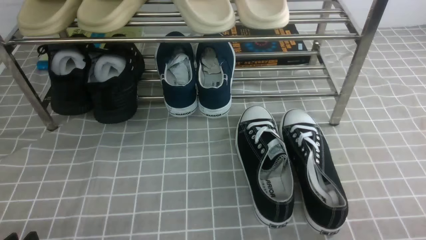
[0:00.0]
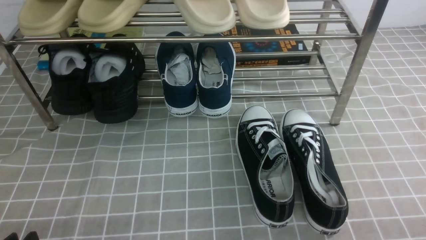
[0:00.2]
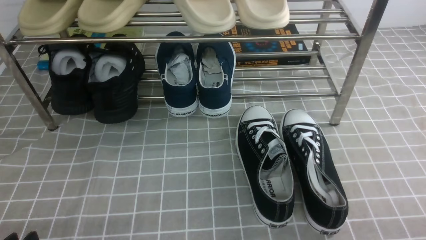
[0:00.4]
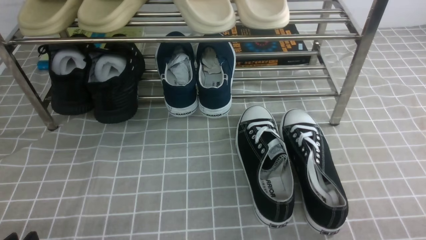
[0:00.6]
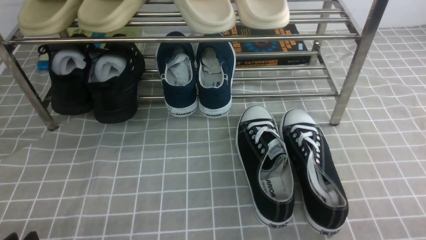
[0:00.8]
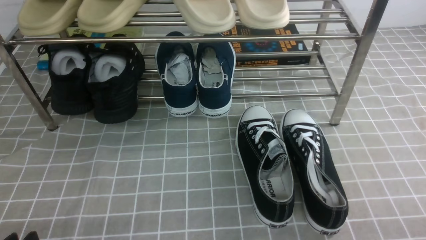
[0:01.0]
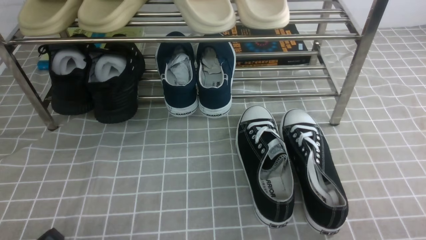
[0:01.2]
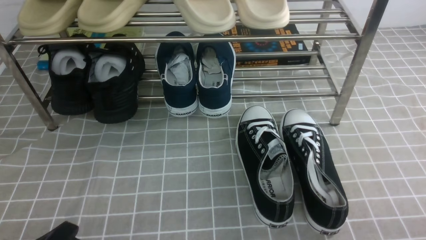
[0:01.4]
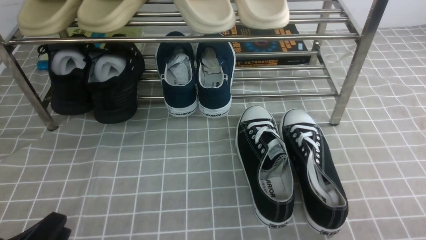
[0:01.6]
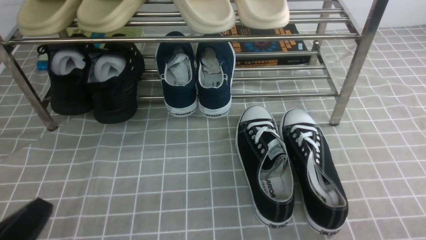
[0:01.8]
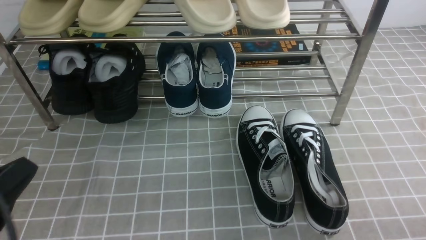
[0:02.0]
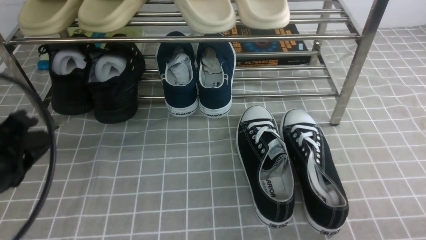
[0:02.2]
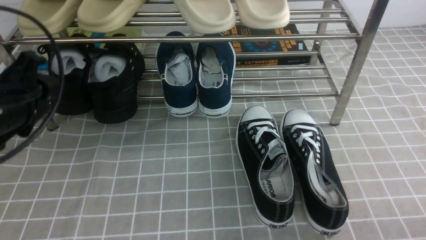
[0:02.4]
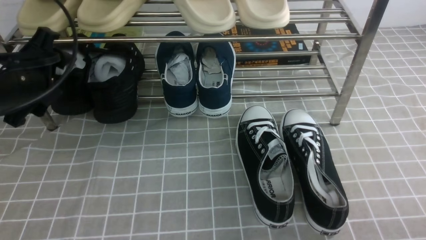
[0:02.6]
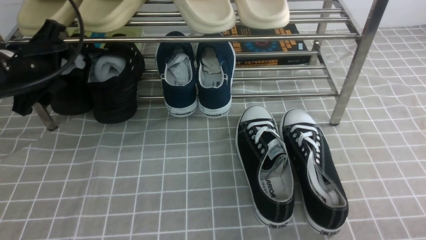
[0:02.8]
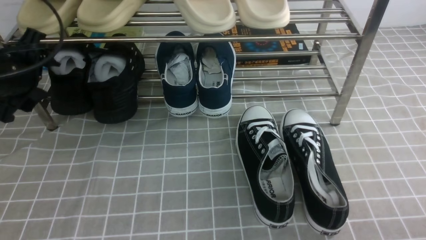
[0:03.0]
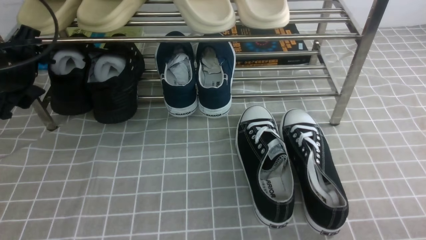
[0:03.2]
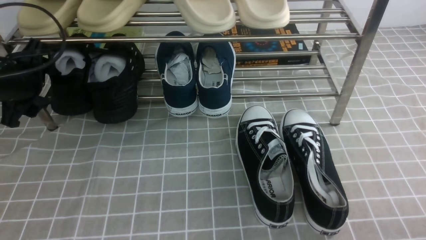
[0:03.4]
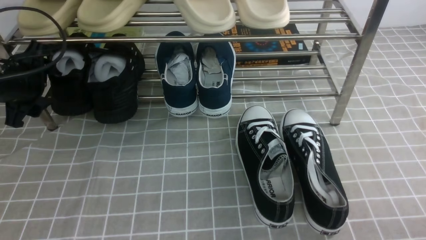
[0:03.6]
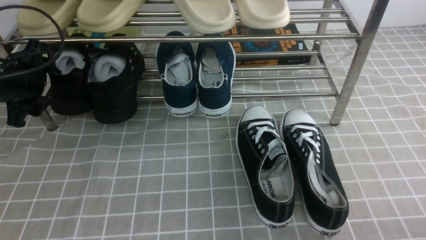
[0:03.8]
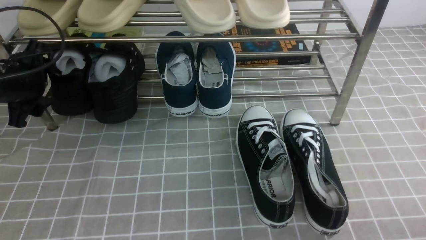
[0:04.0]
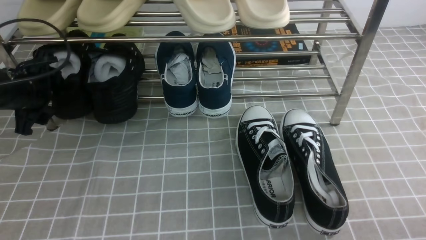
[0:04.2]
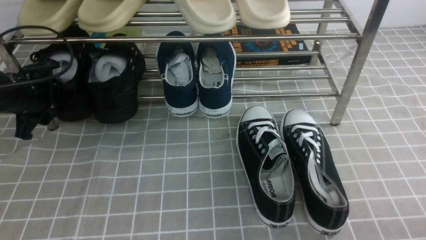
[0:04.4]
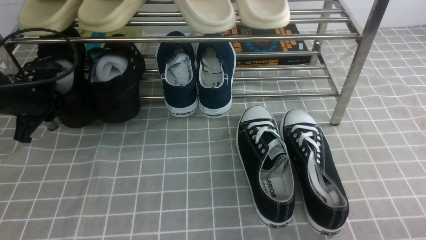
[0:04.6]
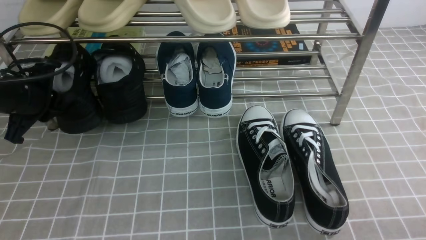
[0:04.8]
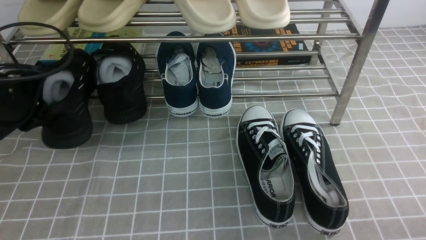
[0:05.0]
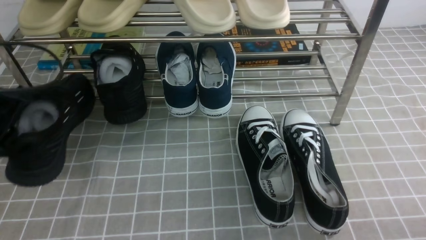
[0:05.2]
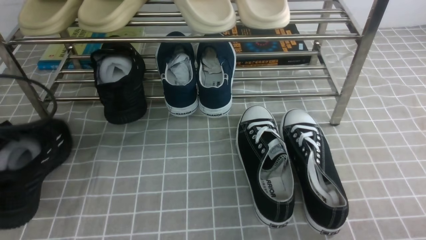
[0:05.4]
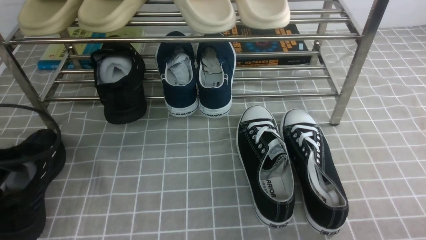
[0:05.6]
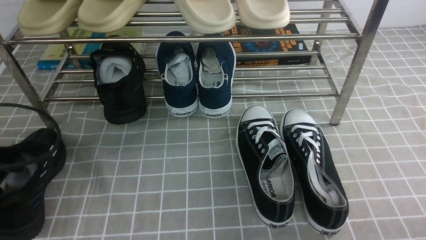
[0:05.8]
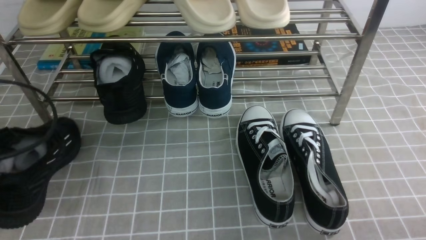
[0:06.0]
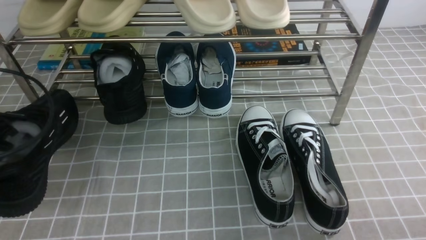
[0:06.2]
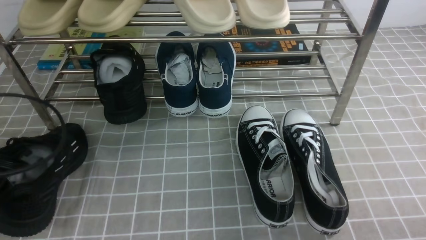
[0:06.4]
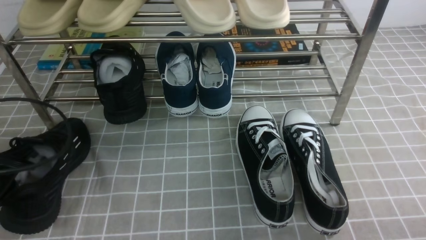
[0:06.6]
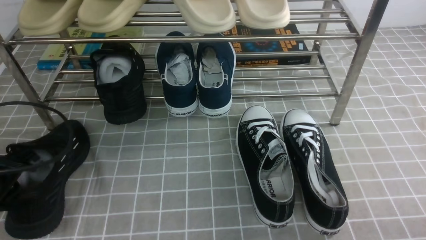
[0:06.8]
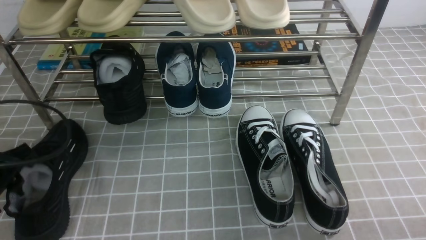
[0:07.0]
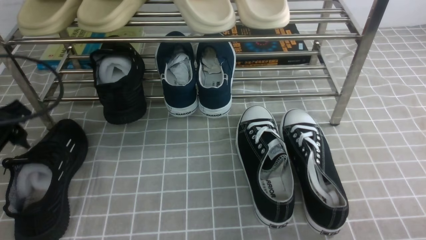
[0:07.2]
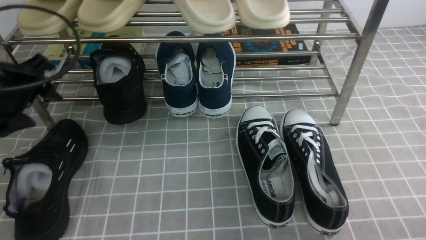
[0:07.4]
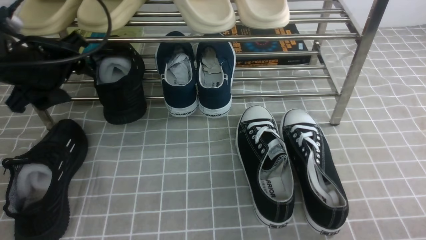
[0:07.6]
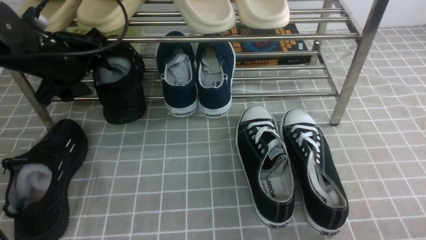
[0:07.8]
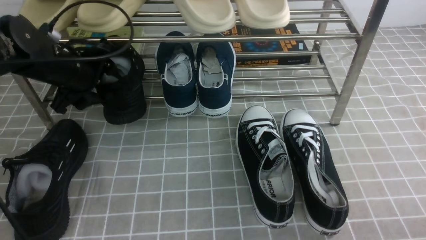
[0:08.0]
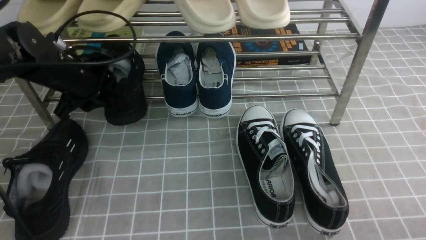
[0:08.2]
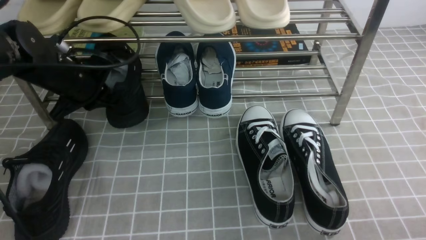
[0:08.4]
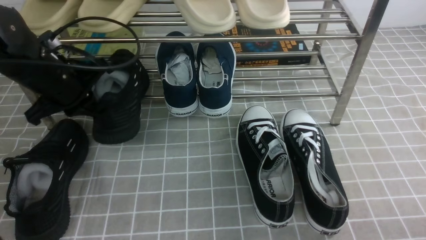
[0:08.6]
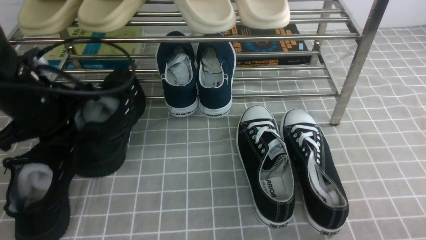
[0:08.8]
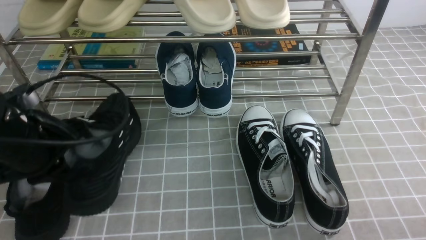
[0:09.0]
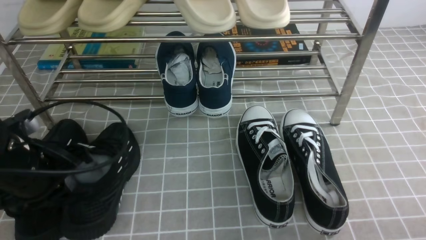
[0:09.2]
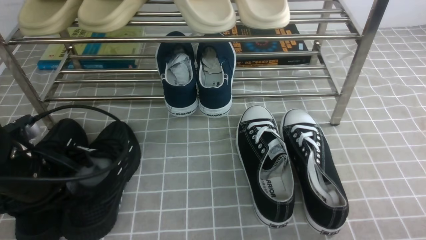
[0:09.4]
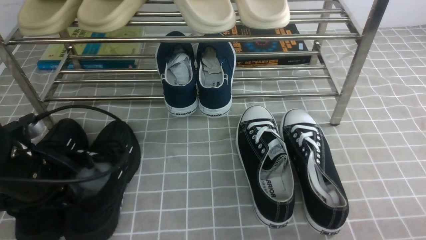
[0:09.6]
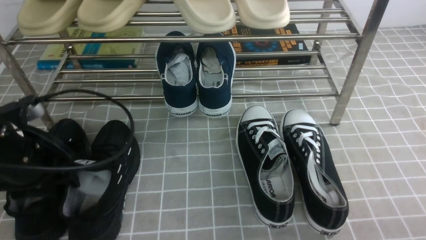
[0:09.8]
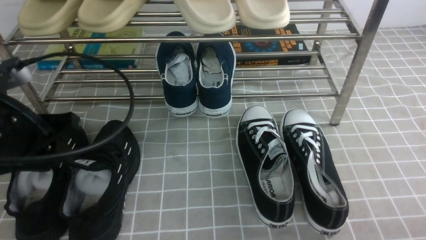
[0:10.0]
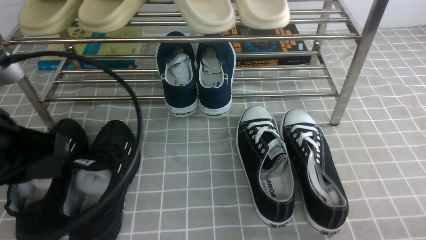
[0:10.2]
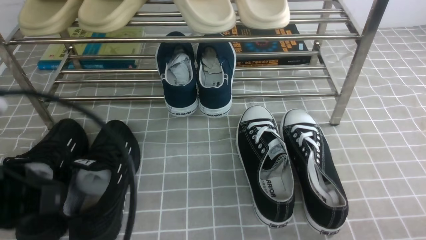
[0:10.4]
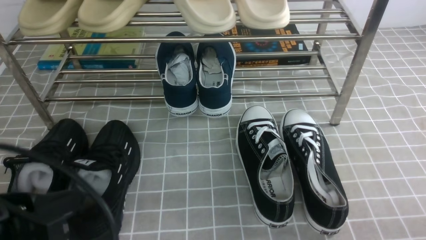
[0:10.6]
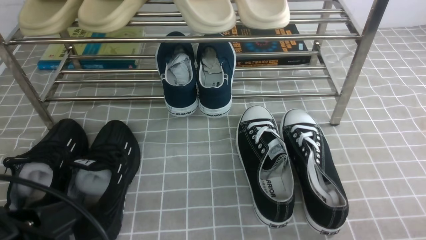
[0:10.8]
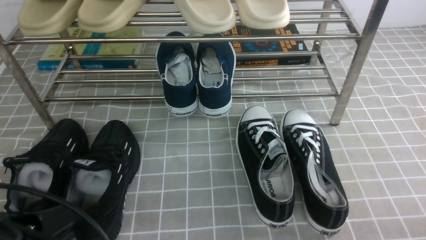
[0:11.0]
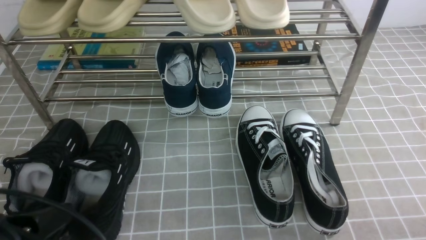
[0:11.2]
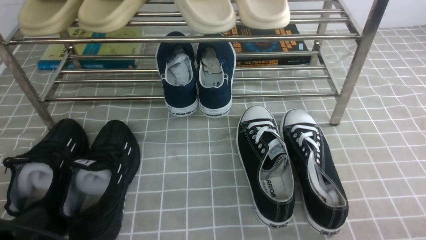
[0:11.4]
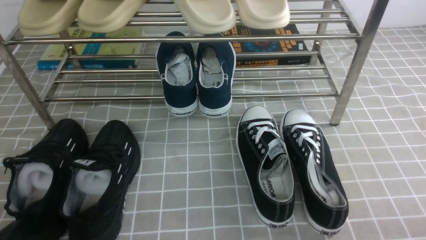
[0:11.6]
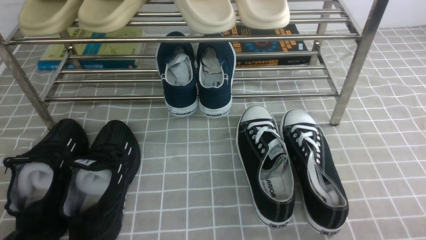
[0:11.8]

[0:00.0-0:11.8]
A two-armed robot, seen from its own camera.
Step, 0:00.0 to 0:04.4: use the left arm to clamp a shoe on the left side of the shoe rack.
Step, 0:04.6 to 0:07.0: Use your left arm to remove the clamped shoe from the shoe rack and put it down.
Step, 0:07.4 to 0:08.4: use the left arm to clamp a shoe on the left side of the shoe rack.
Step, 0:08.8 to 0:09.8: Use your left arm to remove the clamped shoe from the shoe rack and put it down.
0:01.4 to 0:03.0: The left gripper heads forward and upward, covering some 30 cm, and opens.
0:03.0 to 0:04.4: The left gripper moves downward, approximately 5 cm, and closes up.
0:04.4 to 0:06.0: The left gripper moves backward, about 15 cm, and closes its fingers.
0:06.0 to 0:07.4: The left gripper goes about 10 cm forward, and opens its fingers.
0:07.4 to 0:08.8: The left gripper reaches some 10 cm forward, then returns, and closes up.
0:08.8 to 0:10.4: The left gripper goes roughly 15 cm backward, and opens, then closes again.
0:10.4 to 0:11.8: The left gripper is displaced downward and backward by approximately 15 cm.

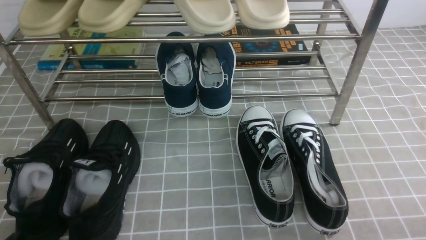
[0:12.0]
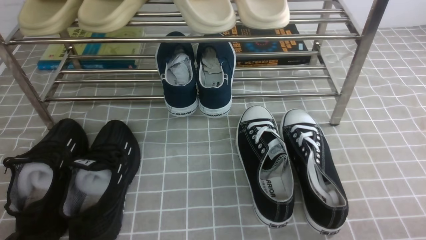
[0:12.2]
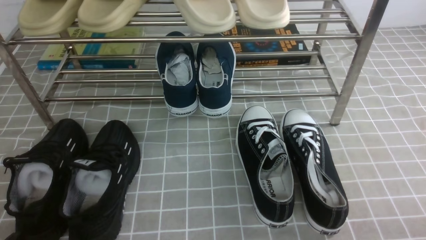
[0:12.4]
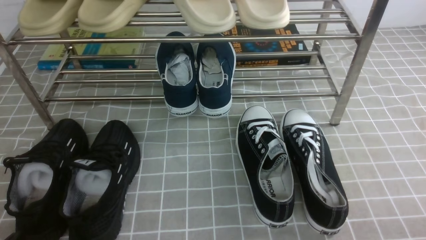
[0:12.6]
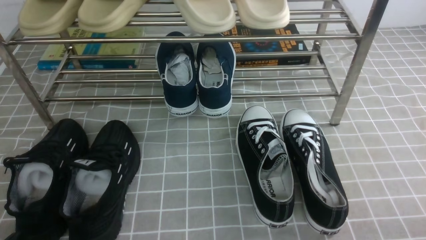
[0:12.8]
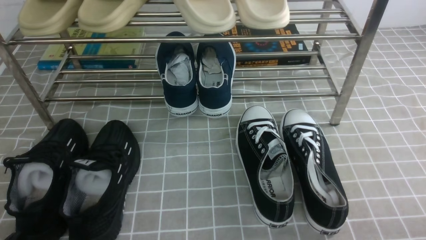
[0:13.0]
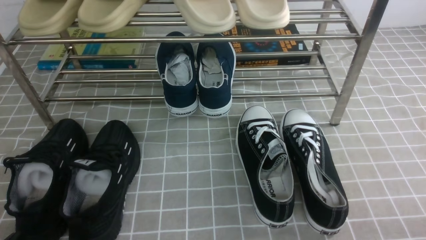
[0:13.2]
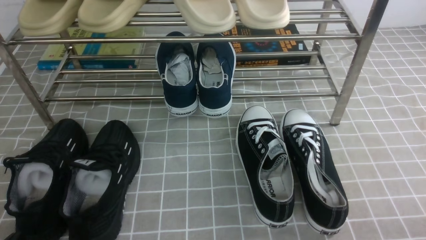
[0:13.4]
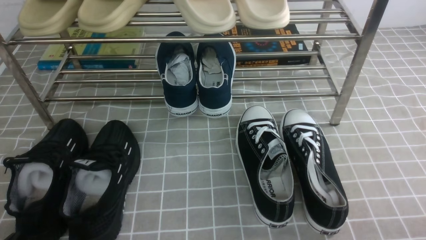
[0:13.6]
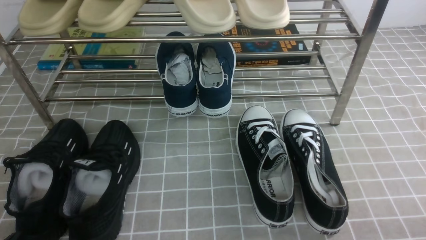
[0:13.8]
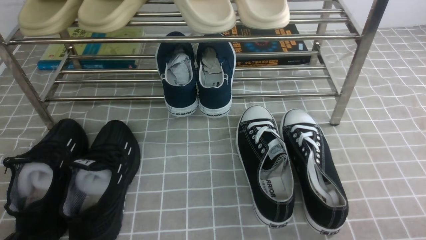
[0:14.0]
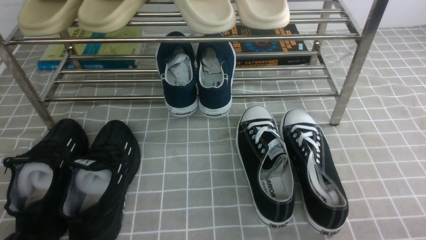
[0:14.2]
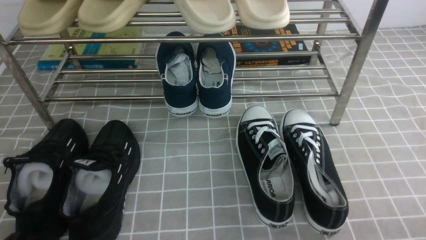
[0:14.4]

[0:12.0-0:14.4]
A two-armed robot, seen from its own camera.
0:12.0 to 0:14.4: The two grippers keep their place.

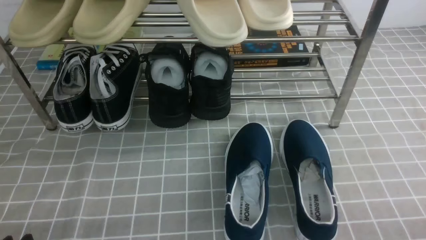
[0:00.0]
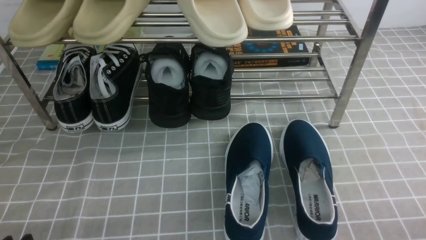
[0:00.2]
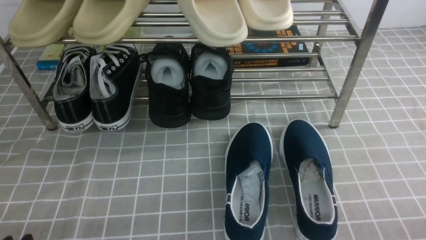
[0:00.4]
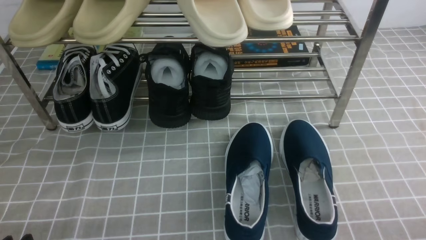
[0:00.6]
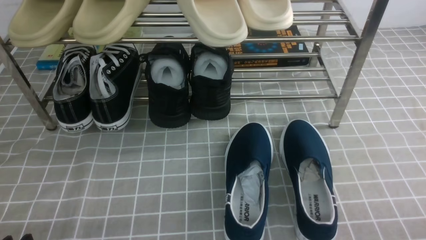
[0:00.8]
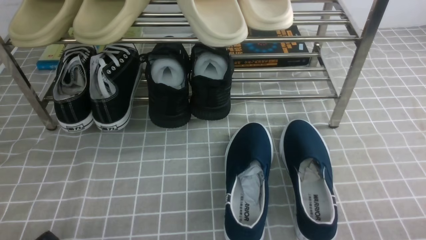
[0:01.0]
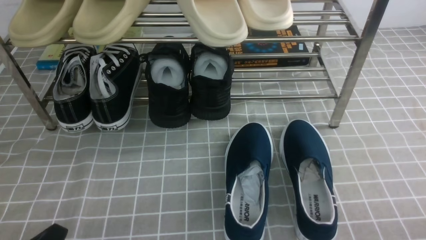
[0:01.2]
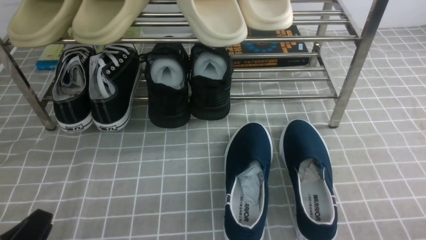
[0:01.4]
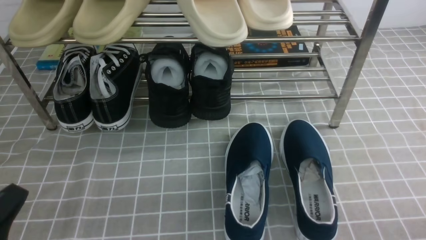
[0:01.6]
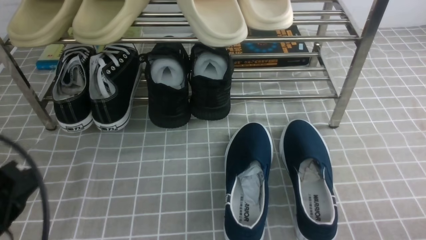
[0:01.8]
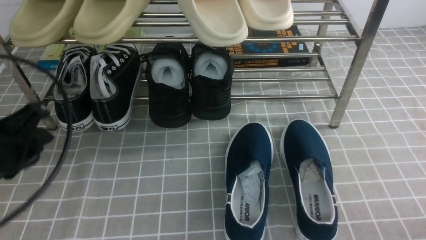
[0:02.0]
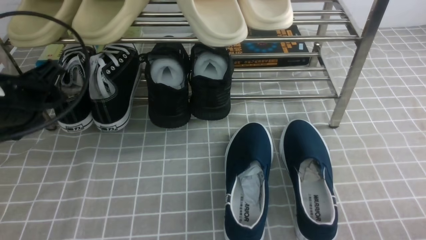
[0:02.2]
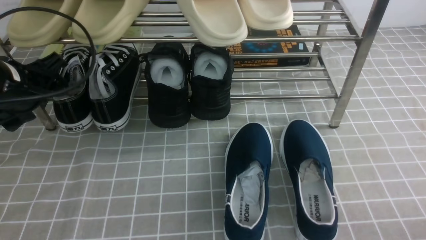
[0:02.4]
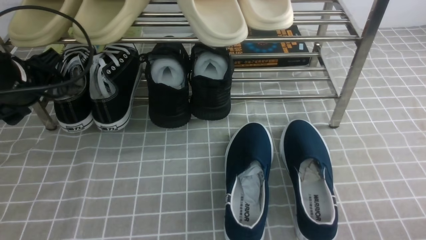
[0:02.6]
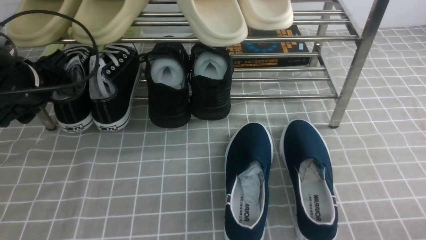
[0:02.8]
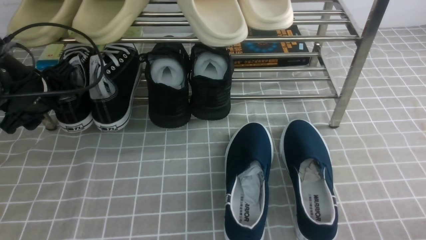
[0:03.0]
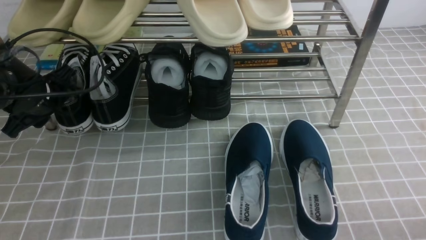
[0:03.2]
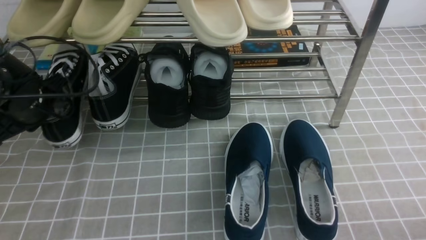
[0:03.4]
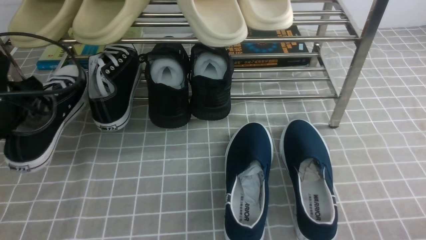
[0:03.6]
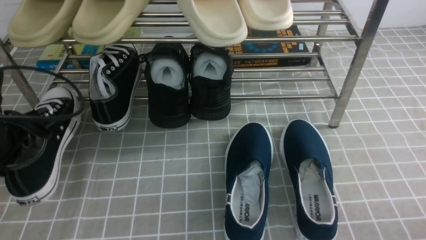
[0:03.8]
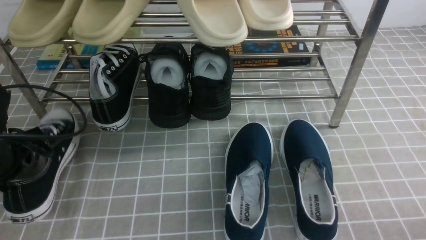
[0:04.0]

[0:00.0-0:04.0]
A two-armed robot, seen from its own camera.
Step, 0:00.0 to 0:03.4: use the left arm to clamp a shoe on the left side of the shoe rack.
0:01.4 to 0:02.6: The left gripper is displaced forward by roughly 25 cm, and opens.
0:02.6 to 0:04.0: The left gripper heads backward, covering approximately 5 cm, and closes.
